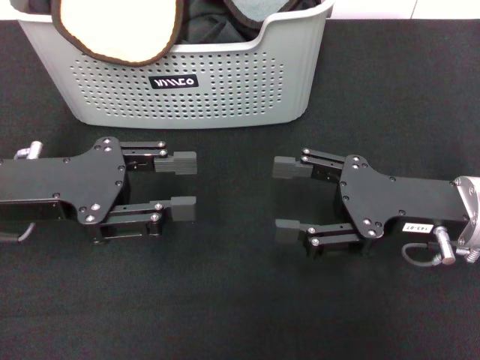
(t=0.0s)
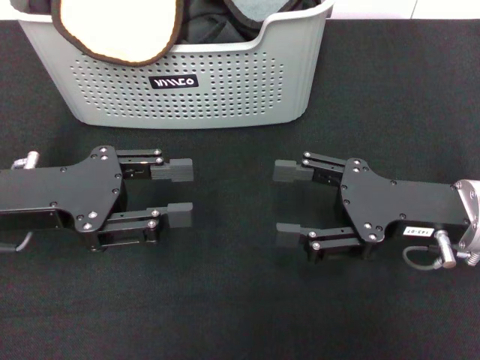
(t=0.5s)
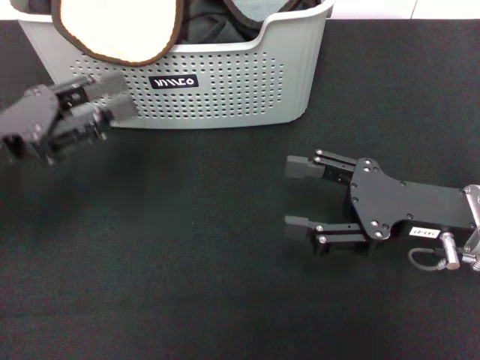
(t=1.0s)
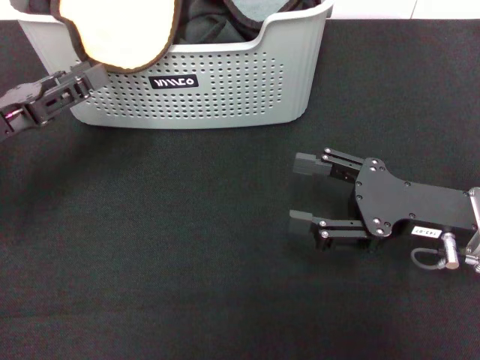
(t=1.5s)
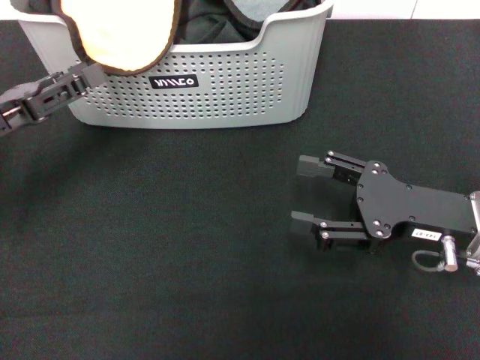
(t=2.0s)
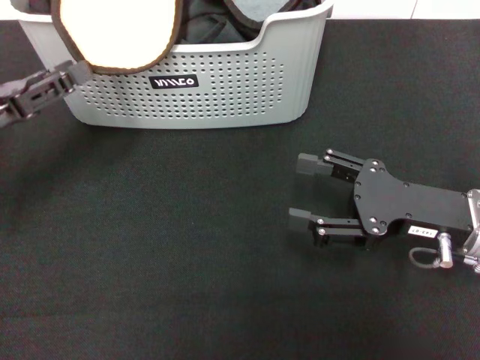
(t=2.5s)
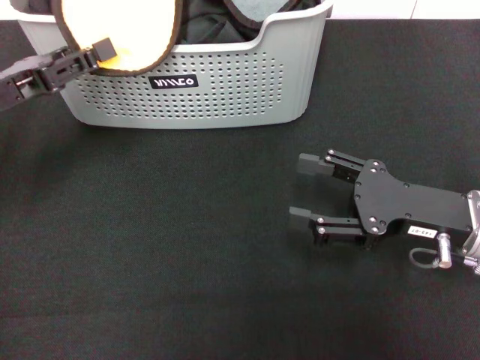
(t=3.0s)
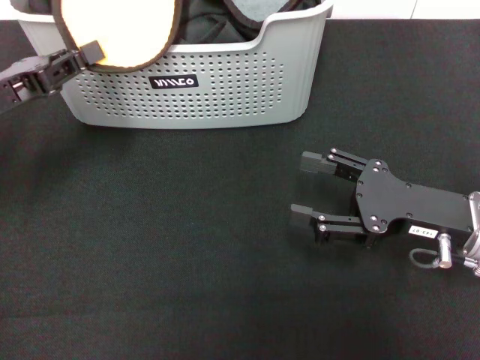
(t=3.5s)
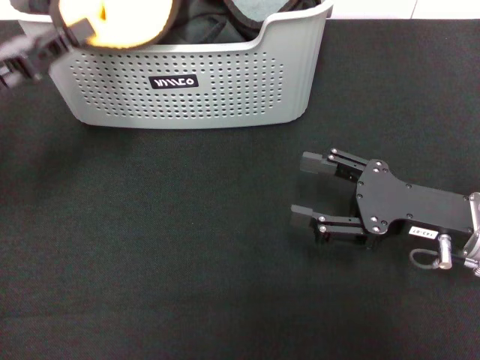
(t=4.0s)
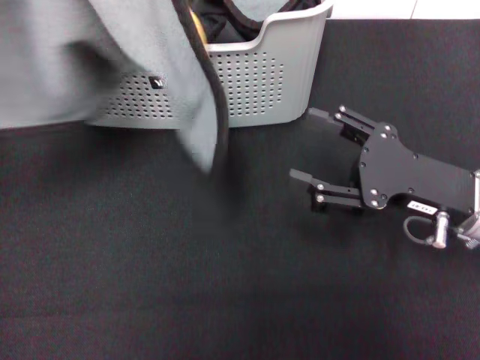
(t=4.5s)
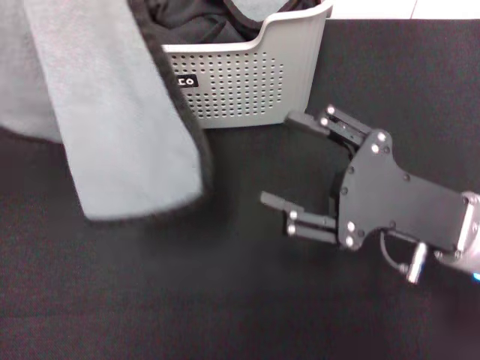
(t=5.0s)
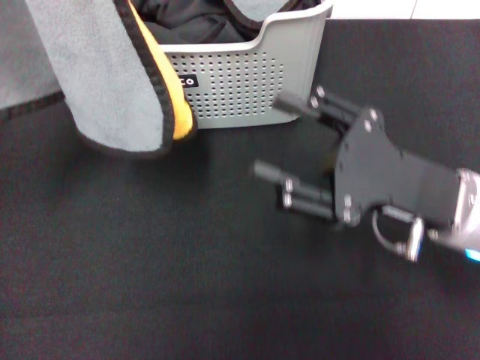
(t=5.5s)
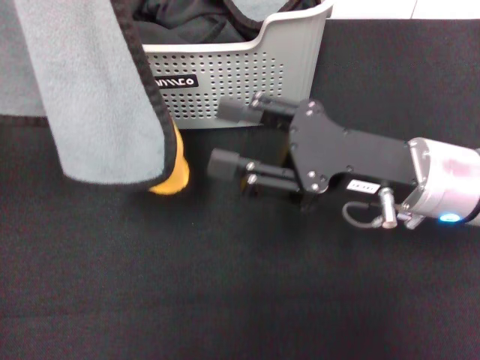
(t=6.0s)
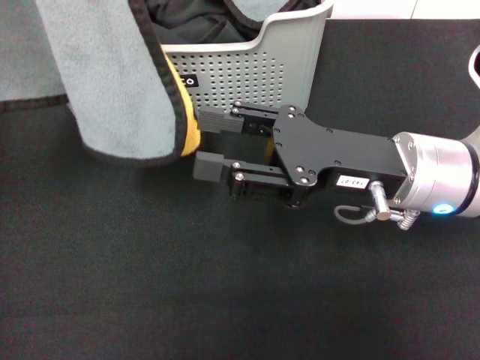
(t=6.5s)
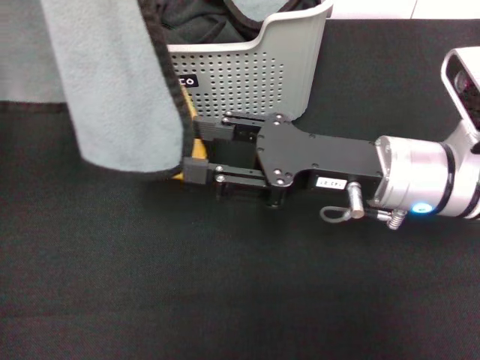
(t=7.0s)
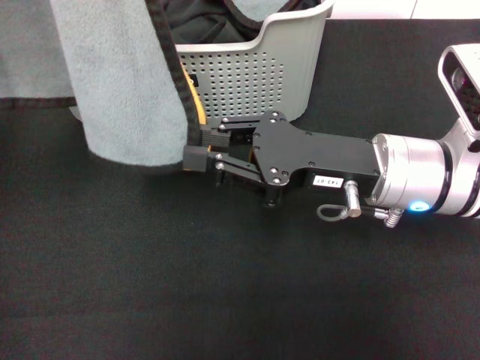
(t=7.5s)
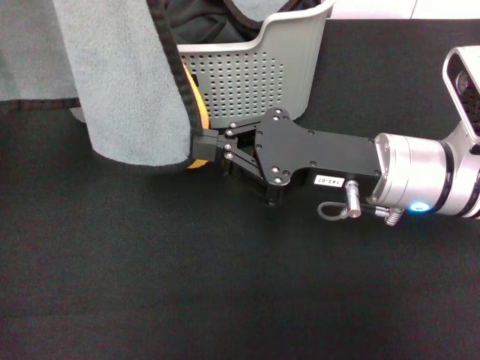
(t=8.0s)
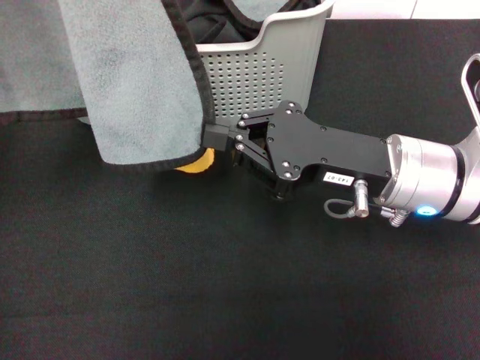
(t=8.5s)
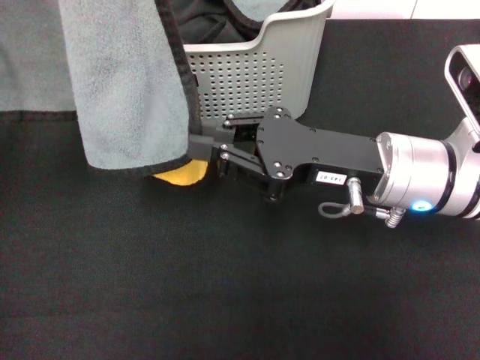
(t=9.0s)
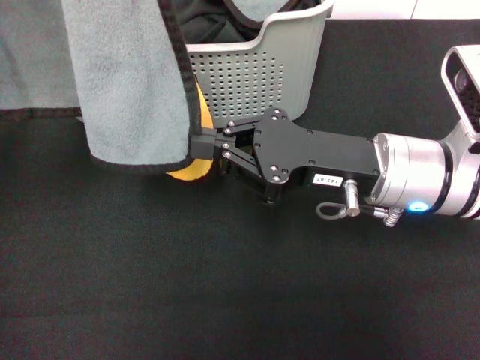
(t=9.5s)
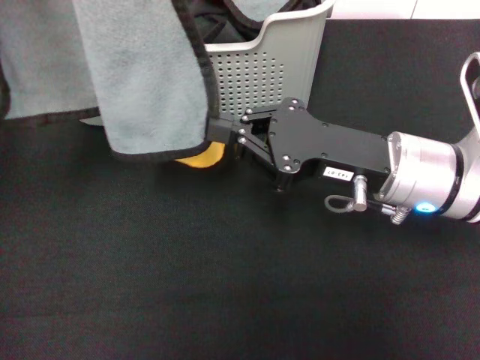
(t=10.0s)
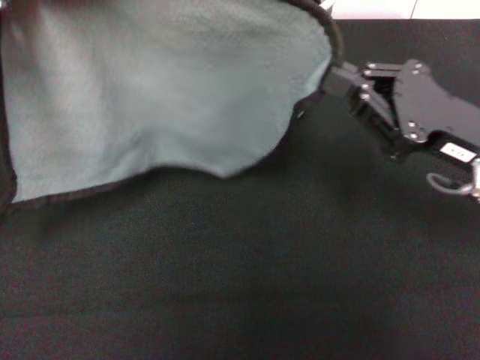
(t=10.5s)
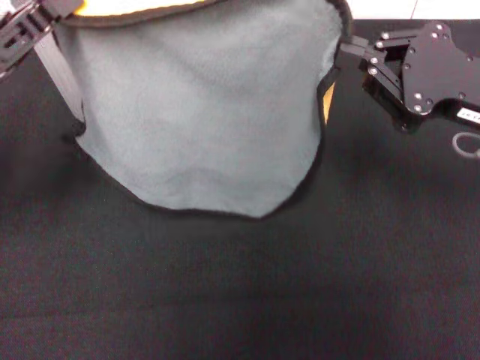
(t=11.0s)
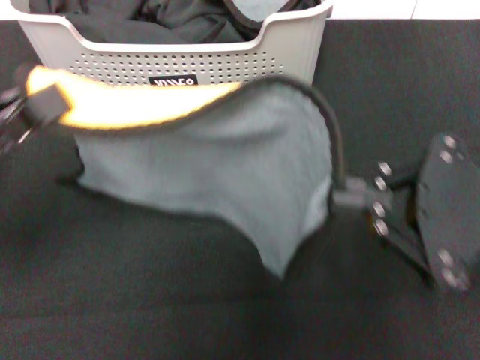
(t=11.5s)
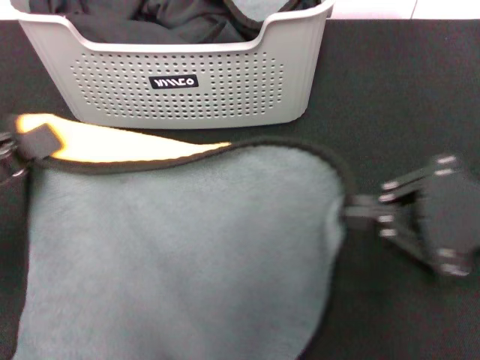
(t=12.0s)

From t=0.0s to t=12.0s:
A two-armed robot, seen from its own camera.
Task of the whole recording: pick up the towel from the storage box and lay it flat on the black tablecloth.
Step, from t=0.0s to t=3.5s: Pick up a towel with the left gripper.
Step, from t=4.0s to t=8.0s: Spread the towel flat with the left gripper.
From t=0.0s to t=2.0s: The left gripper heads to the left, covering roughly 5 cm.
From t=2.0s to t=4.0s: The left gripper closes up.
From t=4.0s to t=6.0s: The right gripper moves to the left, some 5 cm; the left gripper is displaced upward by roughly 10 cm.
From t=6.0s to t=8.0s: The right gripper closes.
From t=8.0s to t=10.0s: The grippers move only a little.
From t=10.0s to t=12.0s: The left gripper moves downward and backward, approximately 10 cm, while the right gripper moves to the right, backward and upward, roughly 15 cm.

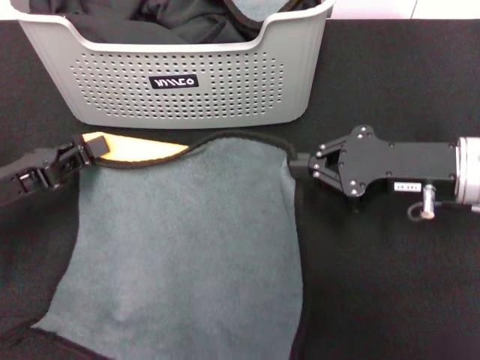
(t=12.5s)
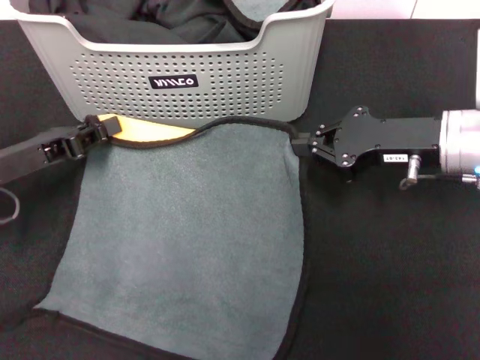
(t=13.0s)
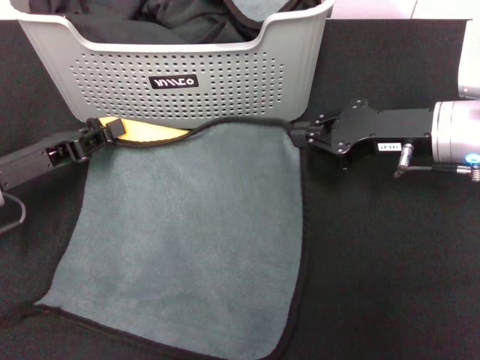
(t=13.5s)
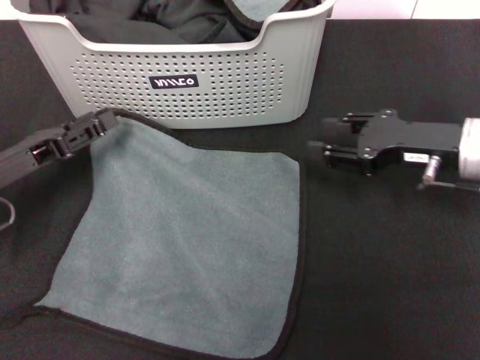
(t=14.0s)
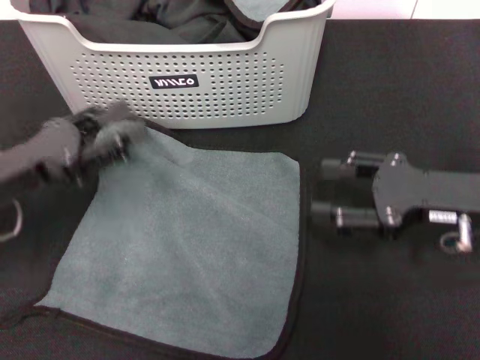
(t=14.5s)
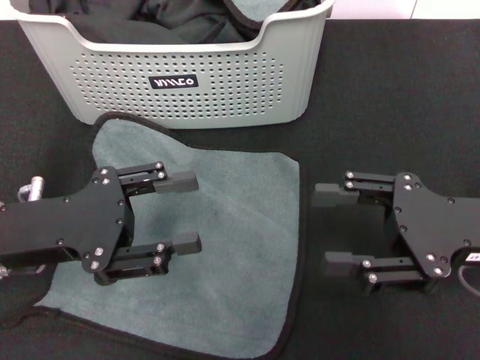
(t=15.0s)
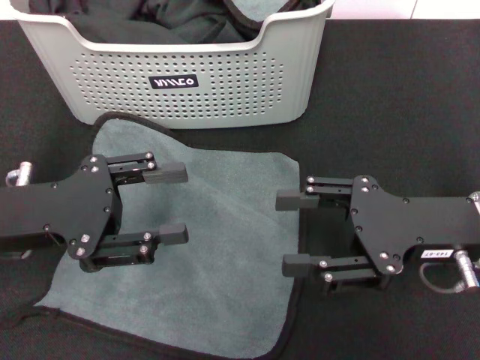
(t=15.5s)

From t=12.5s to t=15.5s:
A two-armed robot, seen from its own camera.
Task of the whole recording: pick up the towel from the storage box and lay it flat on the black tablecloth.
From t=12.5s to t=14.0s: The left gripper opens up.
From t=14.0s to t=15.5s: The right gripper is displaced backward by some 10 cm, and opens, while the left gripper moves upward, approximately 5 cm, and opens.

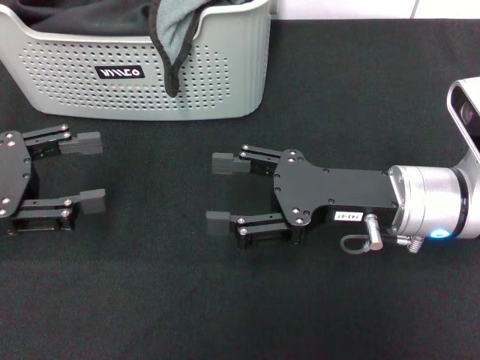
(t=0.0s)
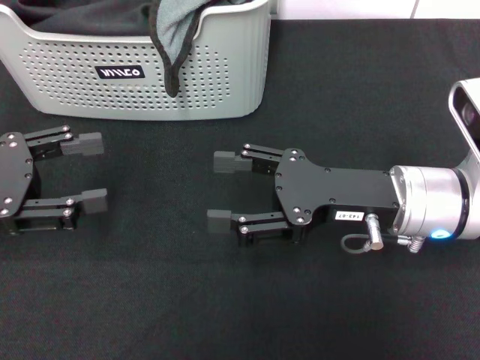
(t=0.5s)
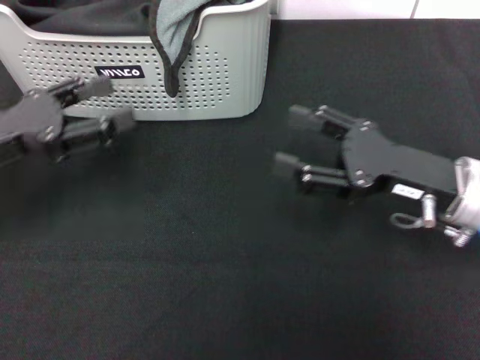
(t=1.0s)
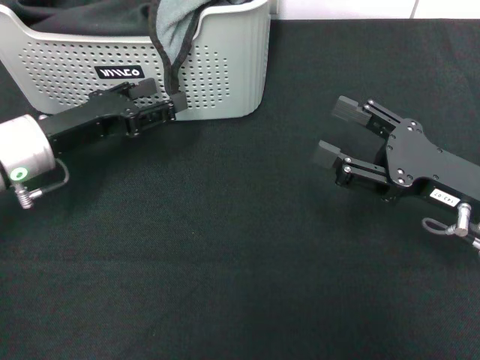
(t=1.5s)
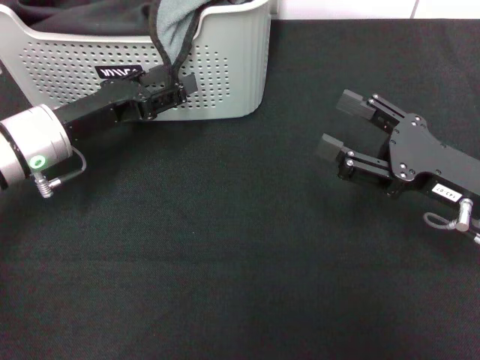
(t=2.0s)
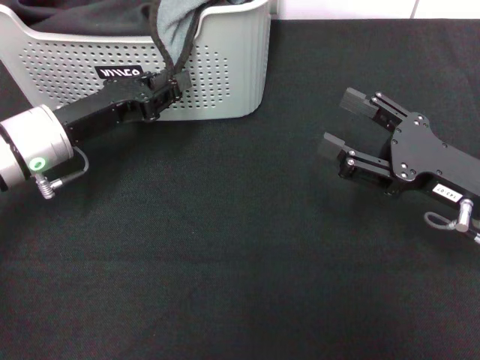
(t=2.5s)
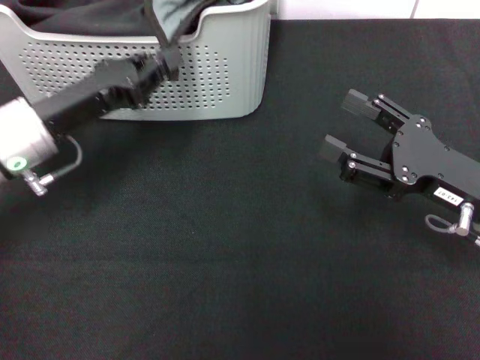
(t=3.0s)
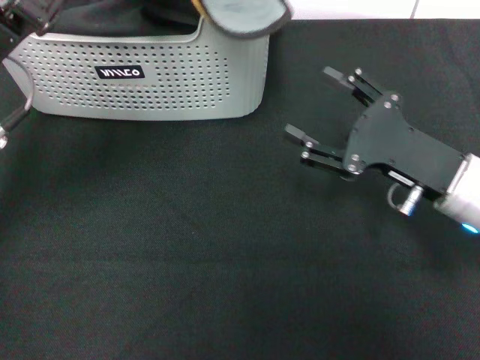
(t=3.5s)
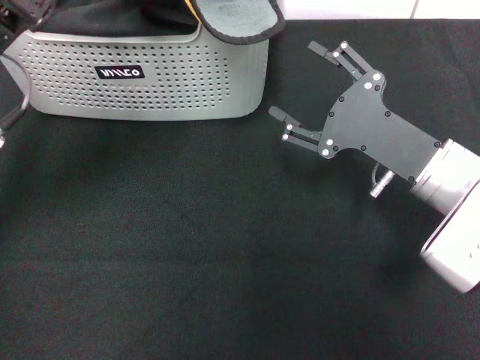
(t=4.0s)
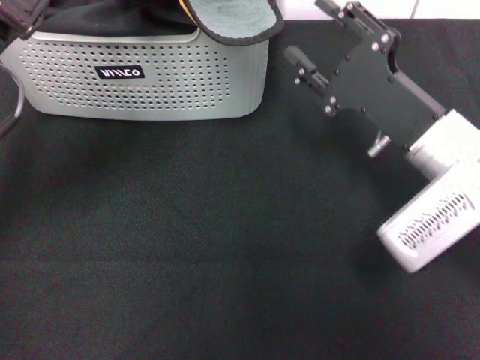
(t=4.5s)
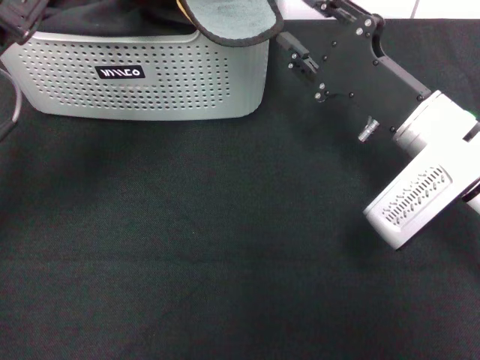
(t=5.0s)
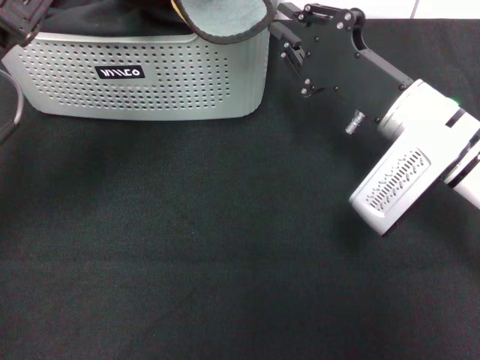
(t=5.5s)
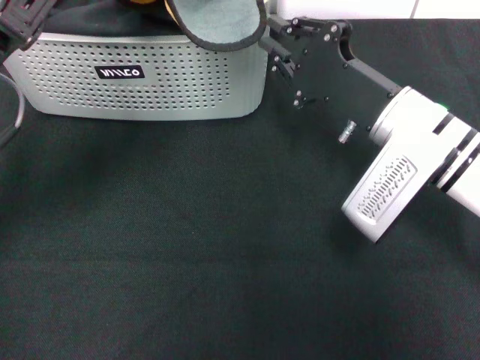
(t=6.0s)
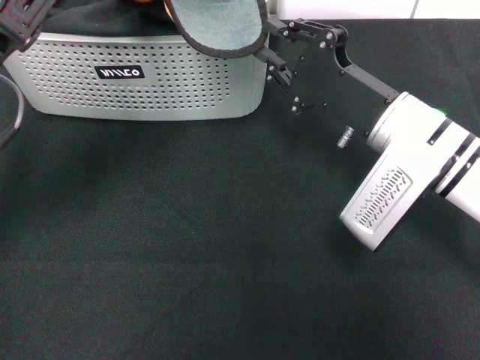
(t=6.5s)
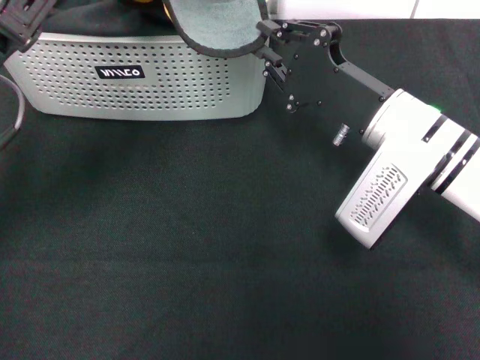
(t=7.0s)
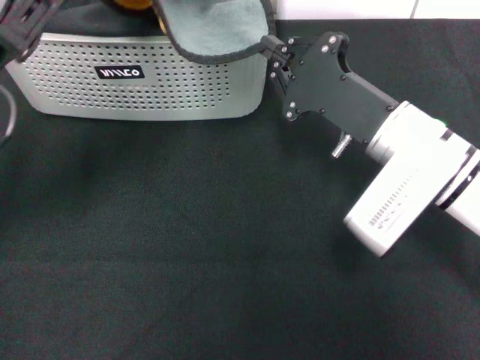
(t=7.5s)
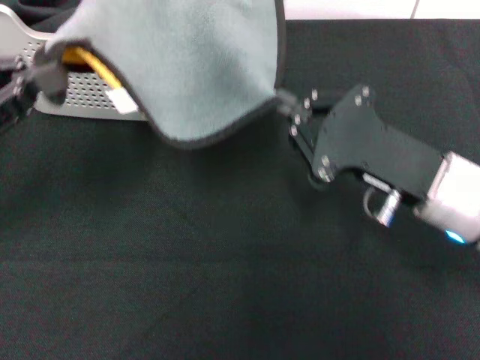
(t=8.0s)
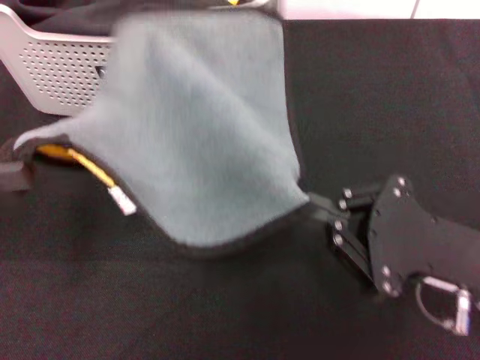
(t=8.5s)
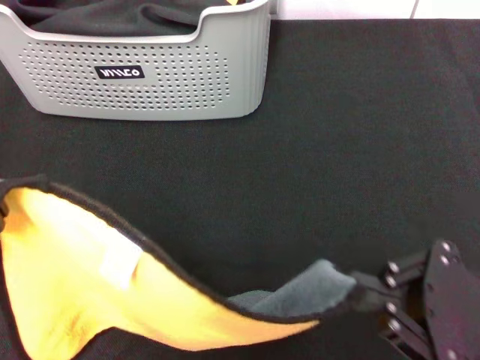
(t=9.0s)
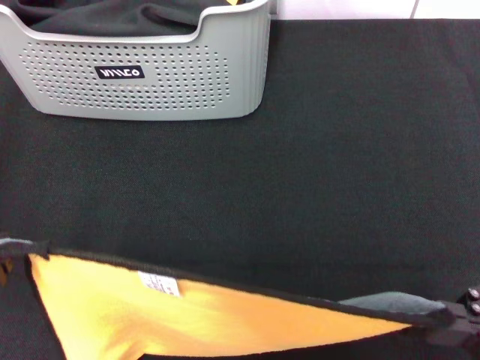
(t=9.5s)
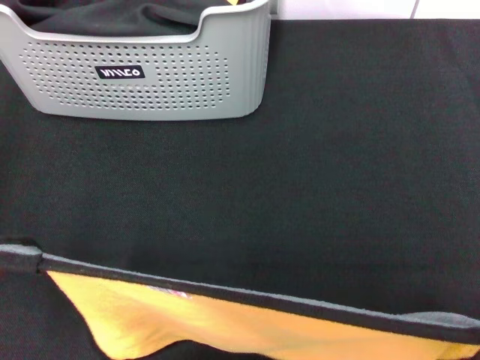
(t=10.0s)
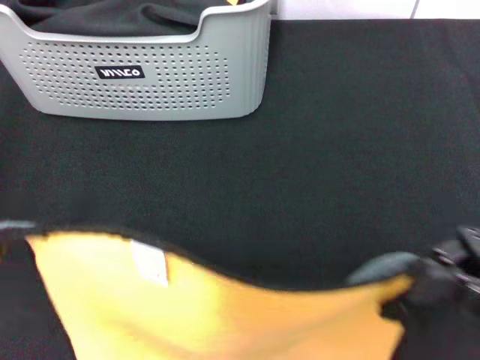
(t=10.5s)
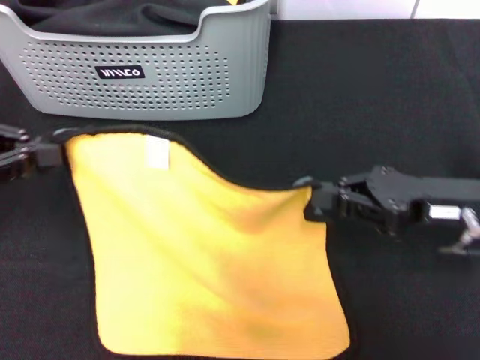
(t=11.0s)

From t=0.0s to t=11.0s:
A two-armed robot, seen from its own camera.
Task of the whole recording: pick up the towel from the storage box and lay it flat on the black tablecloth.
Step, from t=0.0s to t=2.5s: Pick up a towel with the left gripper.
Step, from t=3.0s to t=7.0s: Spread the towel flat with the left gripper.
From t=0.0s to t=2.0s: The left gripper moves to the right, forward and downward, roughly 15 cm; the right gripper moves to the right, about 10 cm.
From t=2.0s to t=3.5s: The left gripper goes some 10 cm upward, and closes its fingers.
From t=3.5s to t=5.5s: The right gripper shifts about 5 cm to the left, and closes up.
From t=5.5s to t=7.5s: The grippers move only a little.
From t=7.5s to t=9.0s: The left gripper shifts some 10 cm to the left and backward, while the right gripper moves backward and to the right, approximately 20 cm.
From t=9.0s to t=11.0s: The right gripper shifts approximately 10 cm forward, while the left gripper travels forward by some 5 cm.
